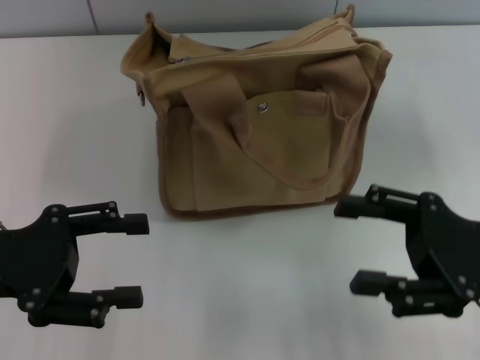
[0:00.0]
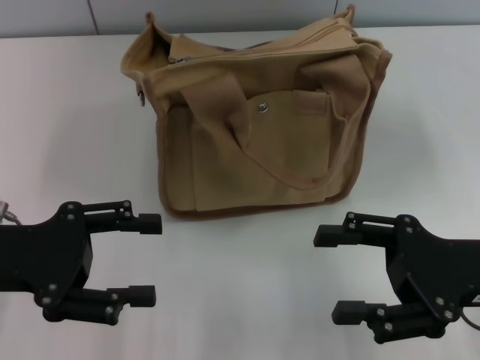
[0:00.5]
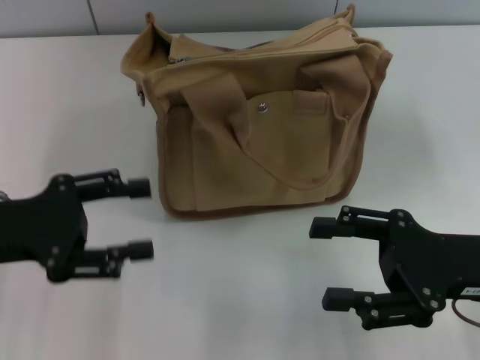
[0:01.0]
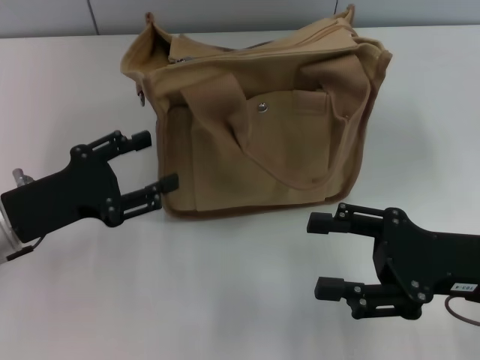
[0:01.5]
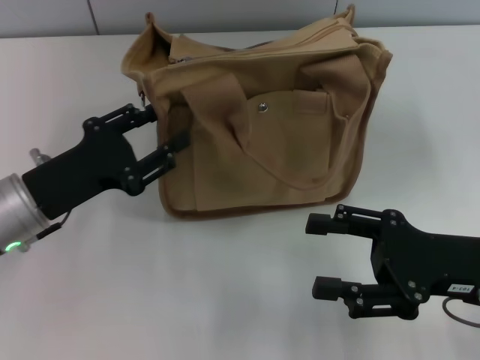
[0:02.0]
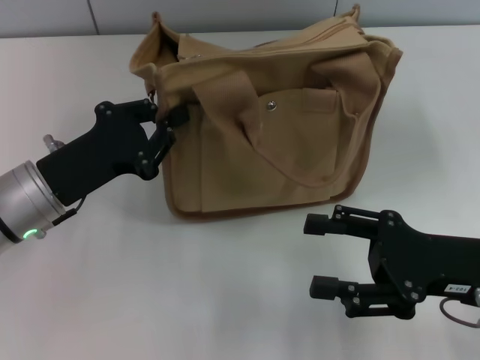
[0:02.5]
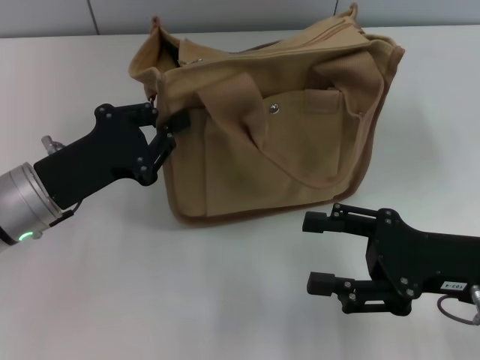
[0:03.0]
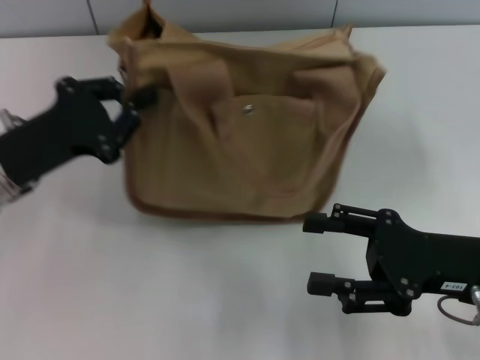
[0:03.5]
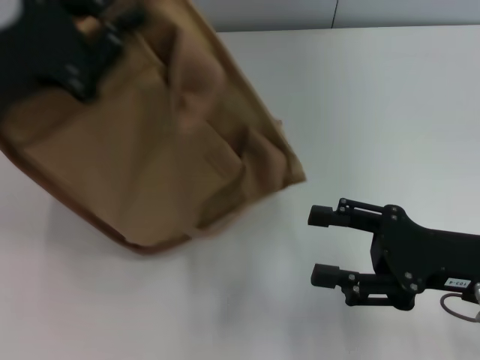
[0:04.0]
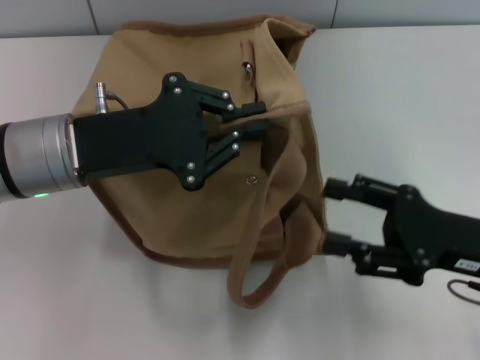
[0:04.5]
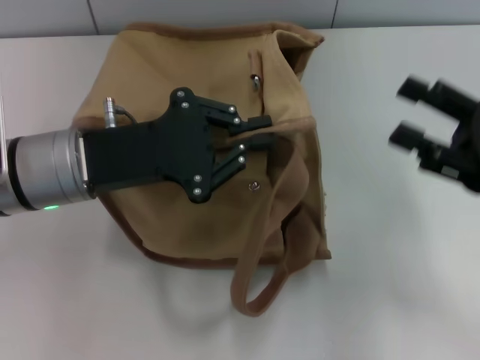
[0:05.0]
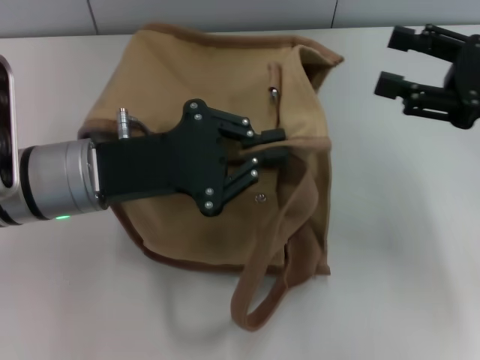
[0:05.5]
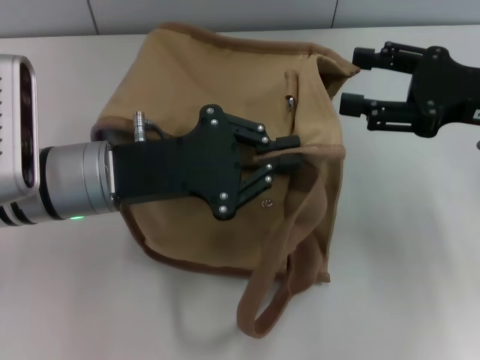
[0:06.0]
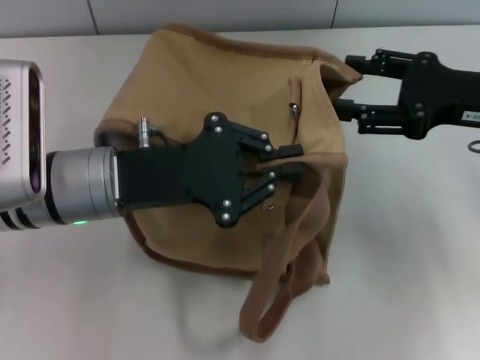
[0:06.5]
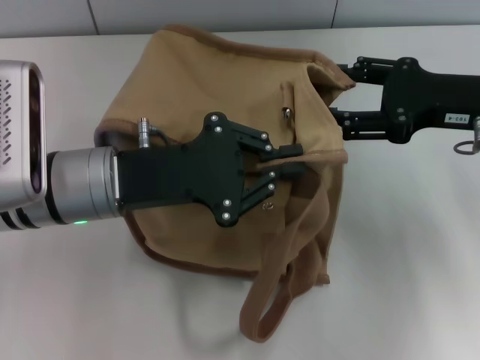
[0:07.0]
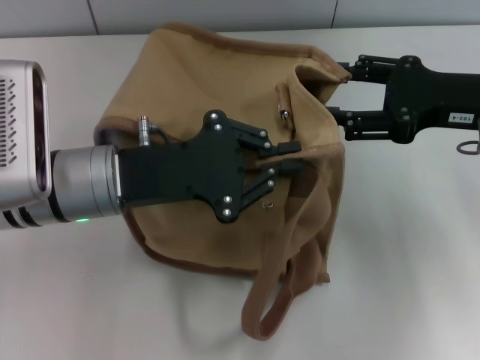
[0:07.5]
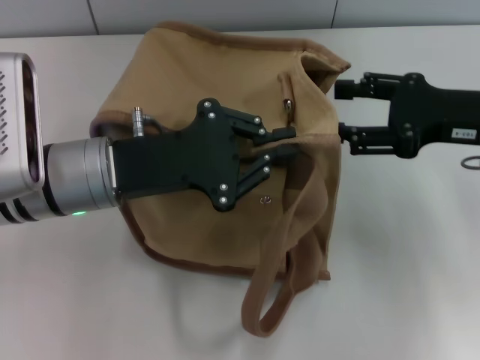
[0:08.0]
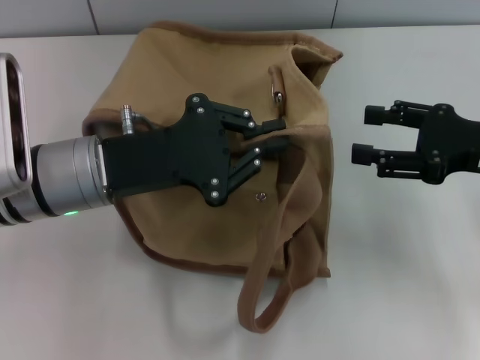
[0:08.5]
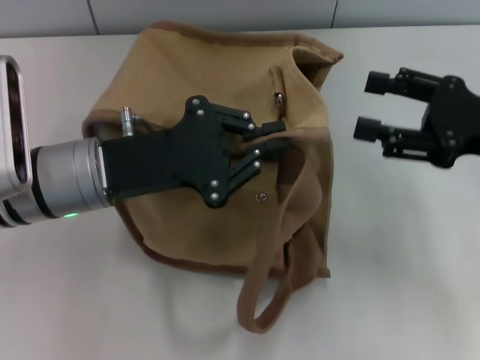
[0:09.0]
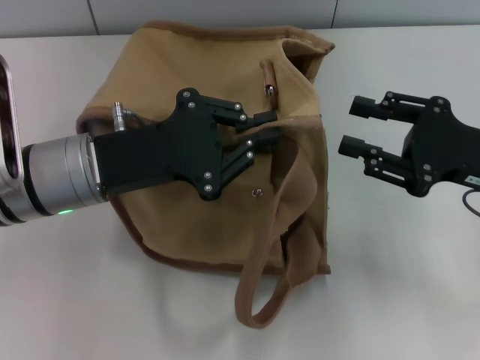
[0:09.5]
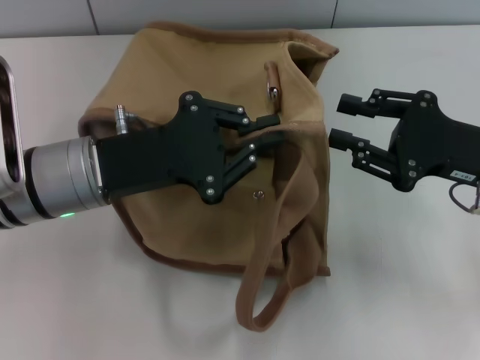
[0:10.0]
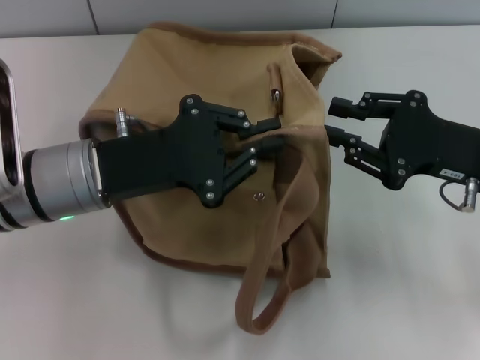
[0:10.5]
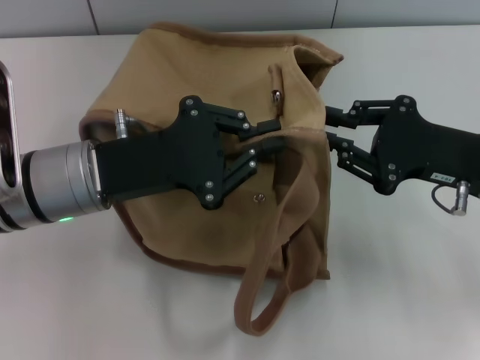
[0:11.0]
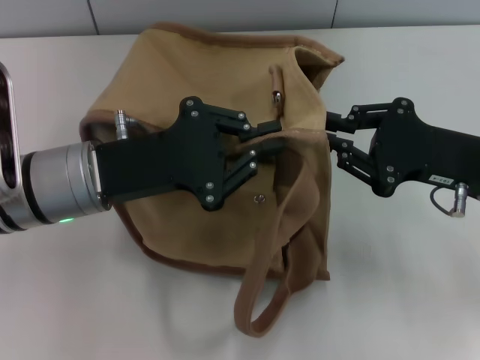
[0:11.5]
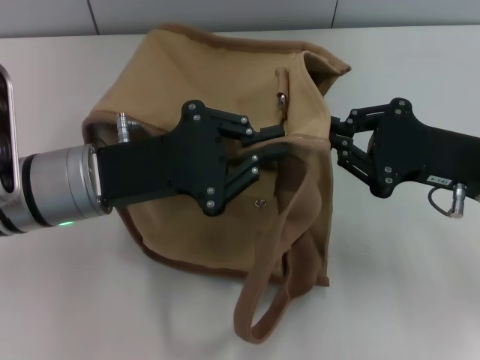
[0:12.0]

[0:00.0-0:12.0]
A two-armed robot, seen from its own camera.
0:00.0 to 0:02.0: The left gripper heads to the right, covering some 5 cm.
0:02.0 to 0:04.0: The left gripper goes some 10 cm upward, and closes up.
0:04.0 to 0:06.0: The right gripper shifts some 15 cm forward and upward. The left gripper travels to the right and downward by about 10 cm.
0:06.0 to 0:08.0: The grippers stay close to where they were, moving slightly.
0:08.0 to 0:10.0: The right gripper closes its fingers.
0:10.0 to 0:12.0: The right gripper closes.

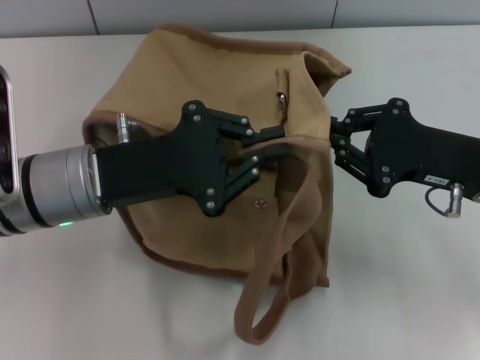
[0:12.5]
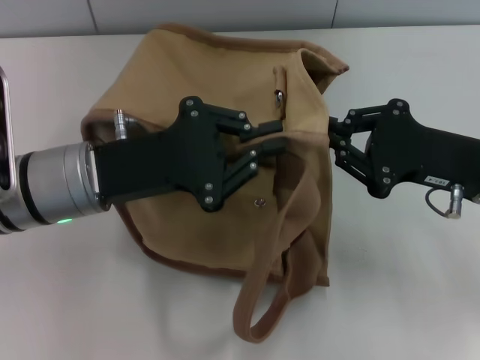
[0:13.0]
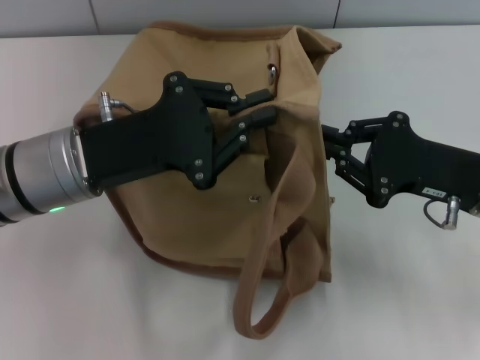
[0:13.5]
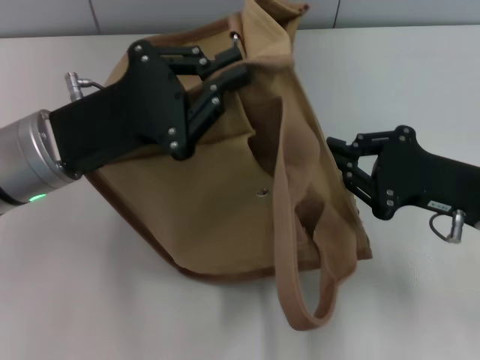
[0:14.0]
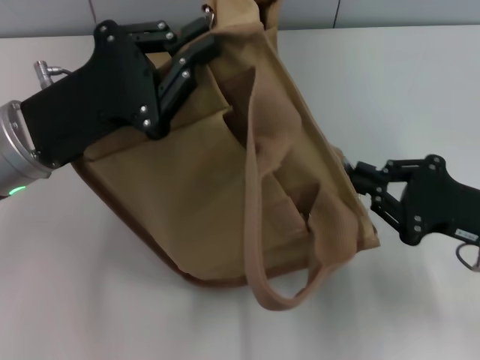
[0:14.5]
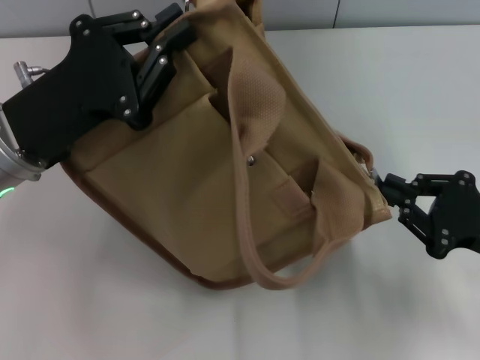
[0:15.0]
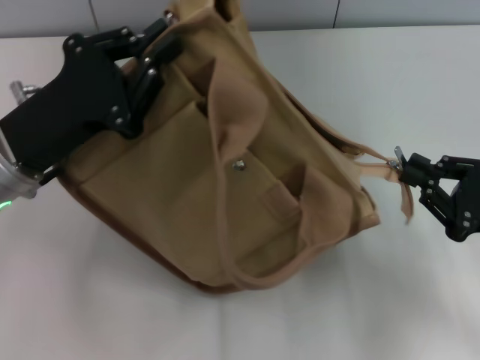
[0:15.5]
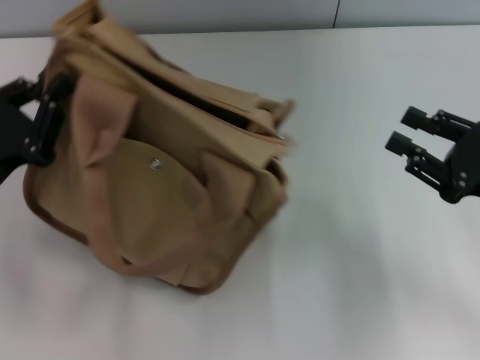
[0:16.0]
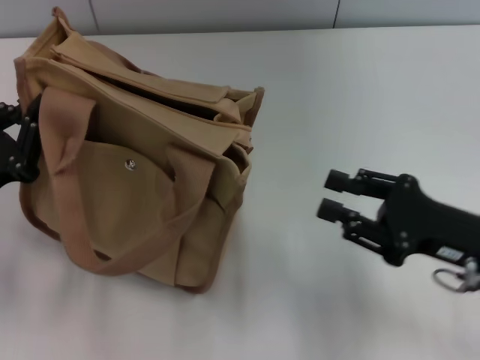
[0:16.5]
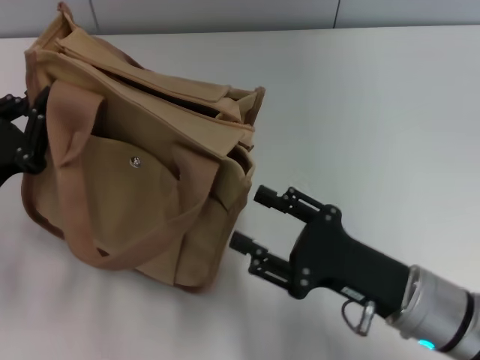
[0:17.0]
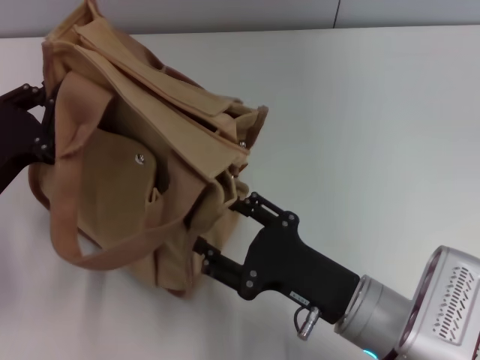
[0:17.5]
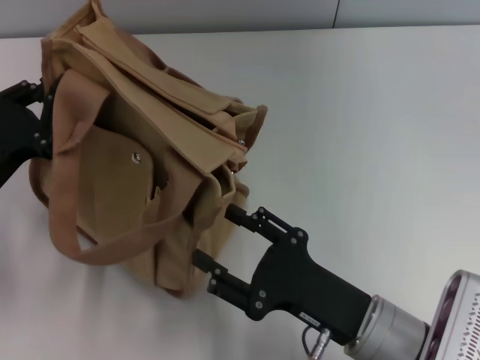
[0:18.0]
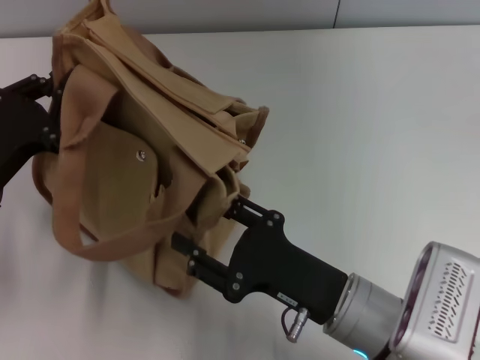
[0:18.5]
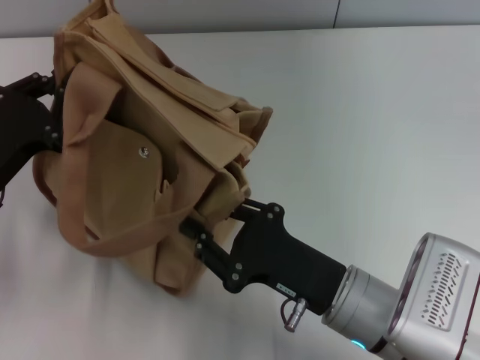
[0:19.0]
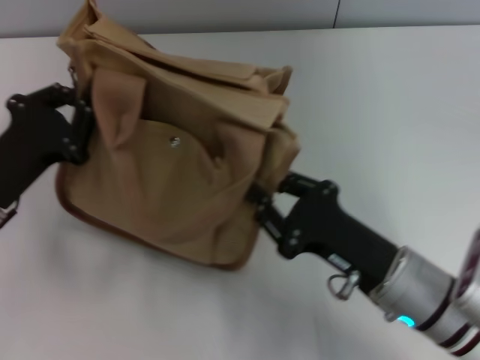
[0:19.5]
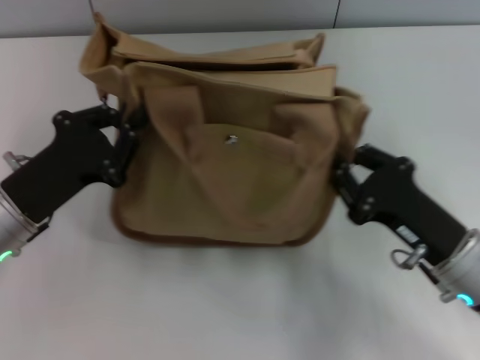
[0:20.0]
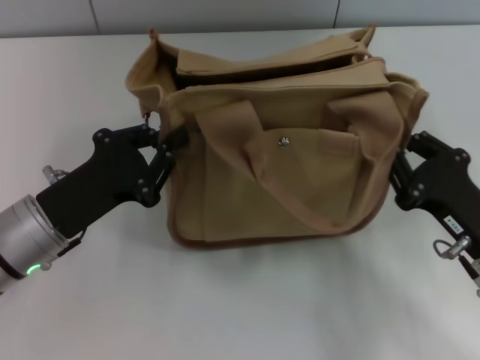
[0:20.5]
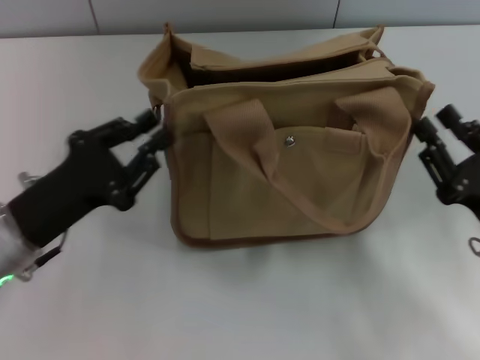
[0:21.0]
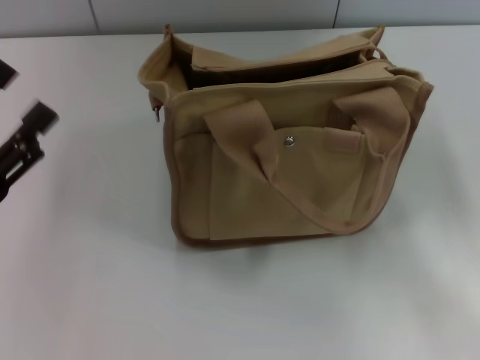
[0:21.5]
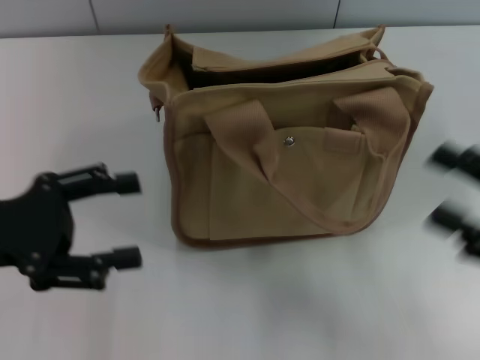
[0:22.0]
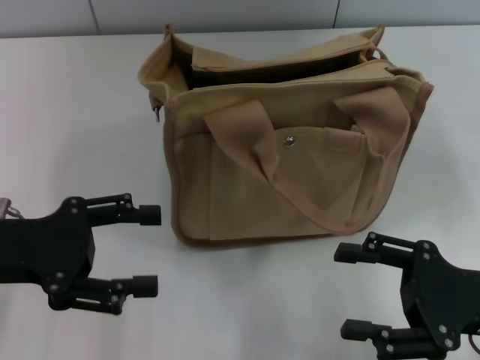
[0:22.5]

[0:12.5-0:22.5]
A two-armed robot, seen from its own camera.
Step, 0:12.5 to 0:15.5: Pull open the zipper with your right hand.
Step, 0:16.0 to 0:21.0: Grab the bag with your left hand.
0:12.5 to 0:14.5: The right gripper changes place by roughly 5 cm.
0:14.5 to 0:16.5: The right gripper opens. The left gripper travels to the left, downward and backward by roughly 15 cm.
0:16.5 to 0:18.5: The right gripper travels to the left by about 15 cm, and opens up.
0:18.5 to 0:20.5: The right gripper moves to the right, approximately 15 cm, and closes its fingers, while the left gripper shifts roughly 5 cm to the right.
0:20.5 to 0:22.5: The right gripper reaches some 10 cm to the right, then returns, and opens. Meanwhile the left gripper is displaced upward and to the left by roughly 10 cm, and opens up.

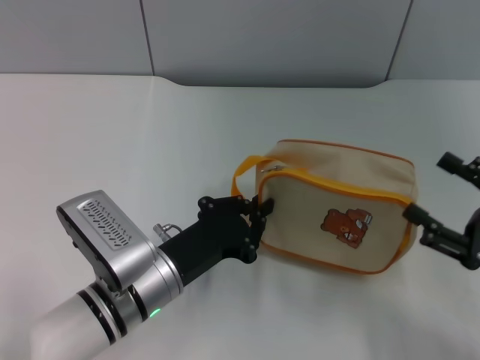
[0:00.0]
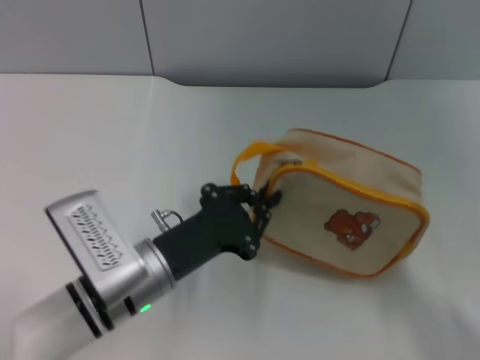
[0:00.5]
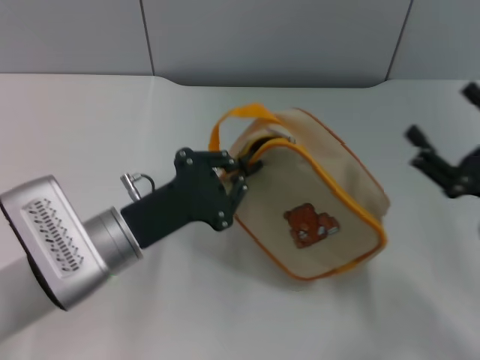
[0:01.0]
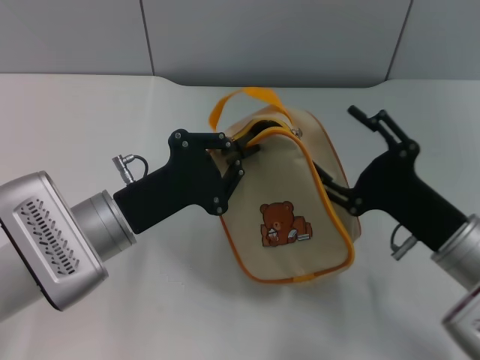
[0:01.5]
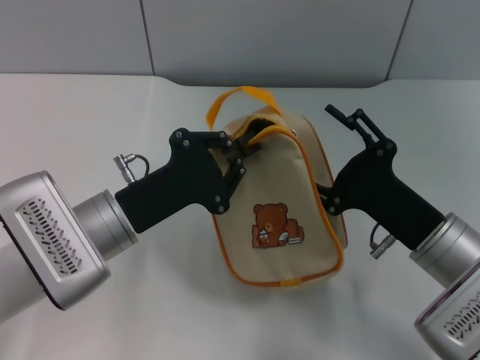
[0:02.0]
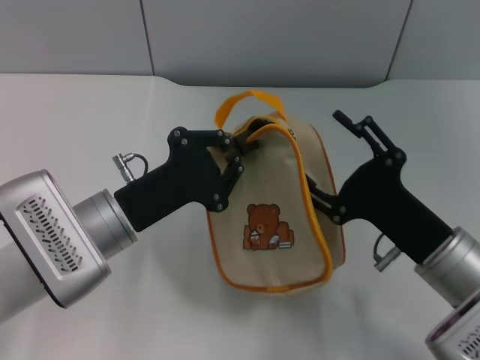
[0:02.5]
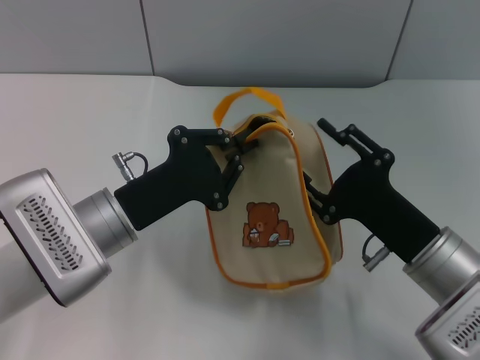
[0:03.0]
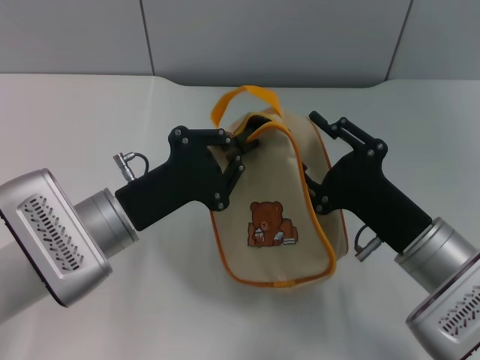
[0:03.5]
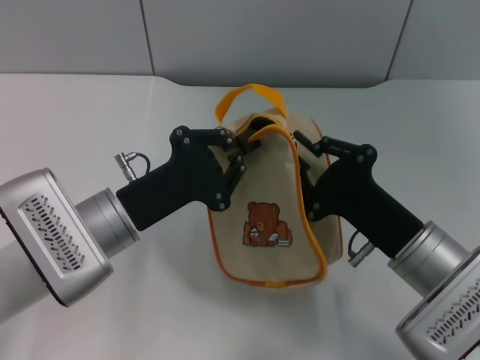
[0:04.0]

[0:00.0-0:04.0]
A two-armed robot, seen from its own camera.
0:00.0 to 0:02.0: The right gripper shifts some 15 cm to the left and forward, while the left gripper moves upward, some 5 cm.
0:02.0 to 0:04.0: The right gripper closes up.
